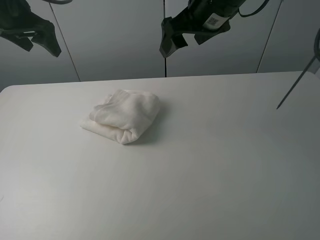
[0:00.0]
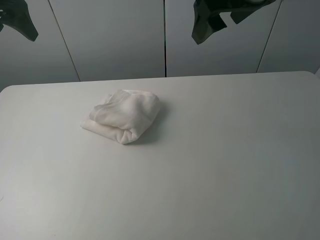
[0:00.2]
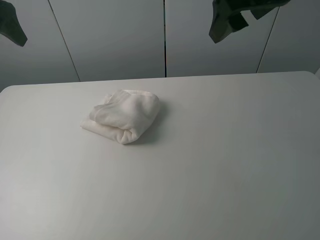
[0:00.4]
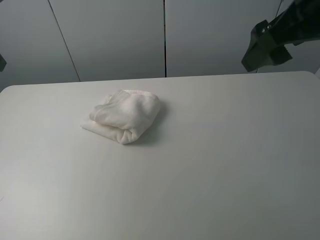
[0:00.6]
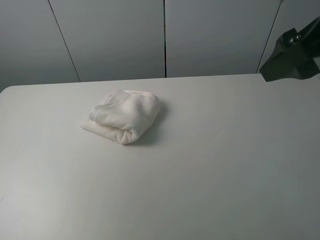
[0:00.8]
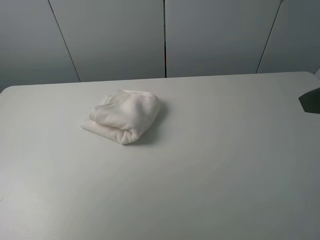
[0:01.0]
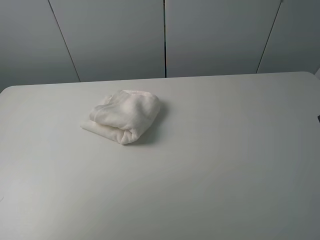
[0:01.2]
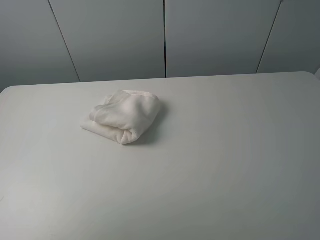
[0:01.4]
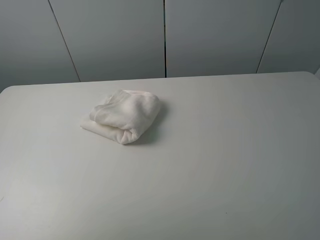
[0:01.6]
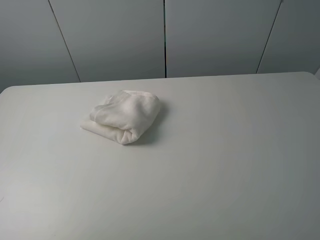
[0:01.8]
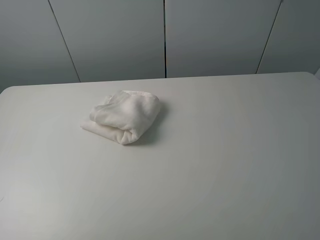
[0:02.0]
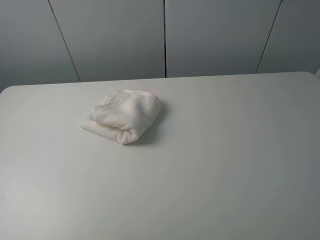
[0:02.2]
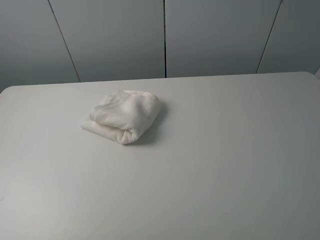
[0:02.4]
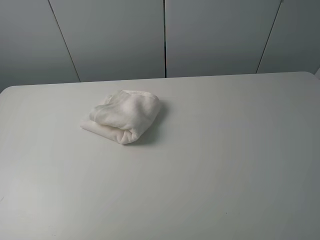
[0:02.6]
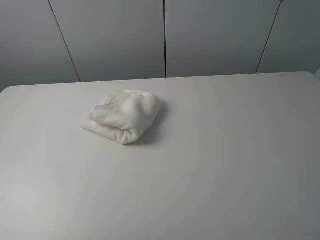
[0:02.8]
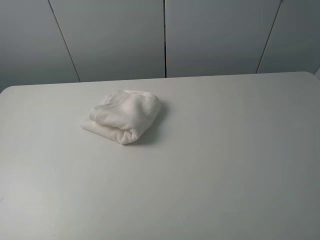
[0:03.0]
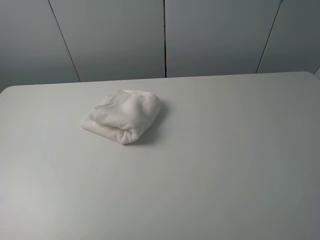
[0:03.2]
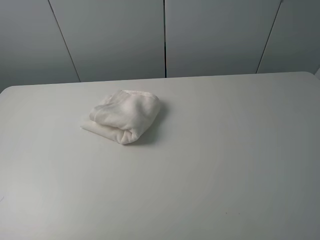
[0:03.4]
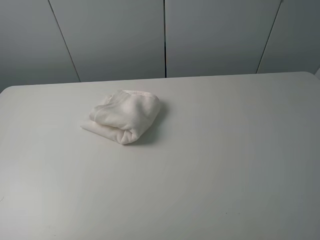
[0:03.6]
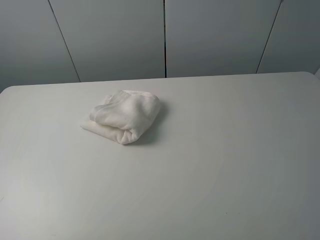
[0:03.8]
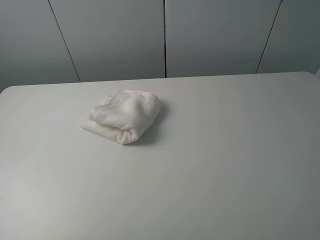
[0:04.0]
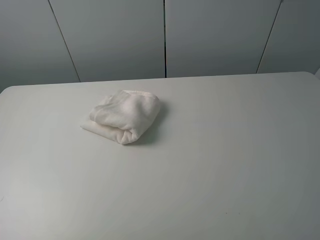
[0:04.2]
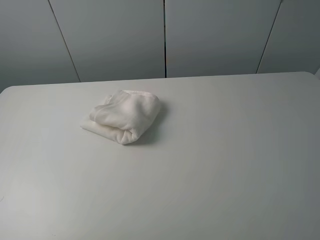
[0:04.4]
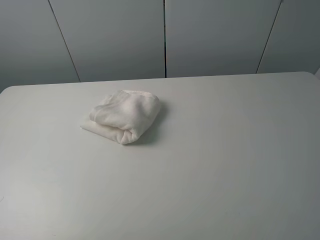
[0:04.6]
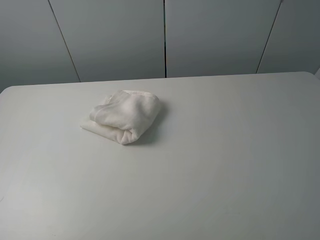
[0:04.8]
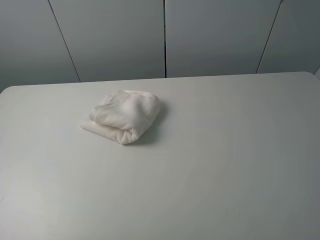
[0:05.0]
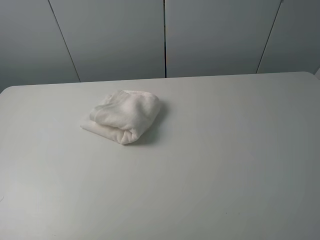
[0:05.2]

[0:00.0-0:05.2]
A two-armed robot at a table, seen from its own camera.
Task of the whole recording: fold the towels on the table.
0:00.0 to 0:01.8: The left gripper is displaced backward by approximately 35 cm; the right gripper is displaced backward and to the right by approximately 40 cm.
0:03.4 to 0:05.2: Both grippers stay put.
